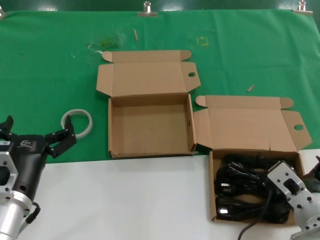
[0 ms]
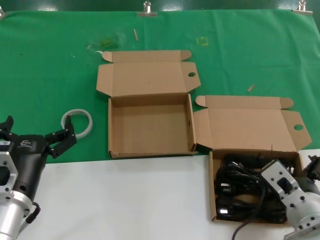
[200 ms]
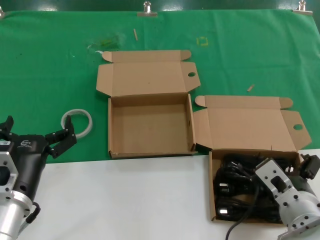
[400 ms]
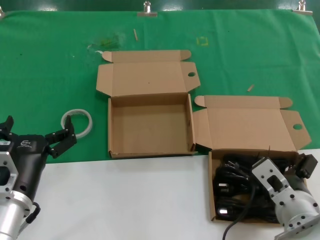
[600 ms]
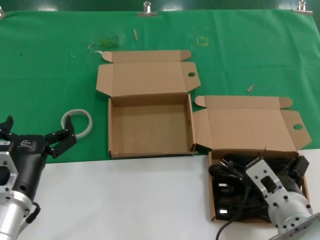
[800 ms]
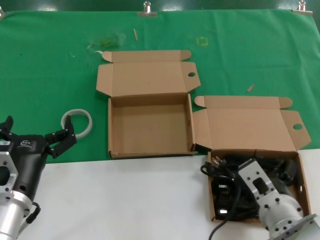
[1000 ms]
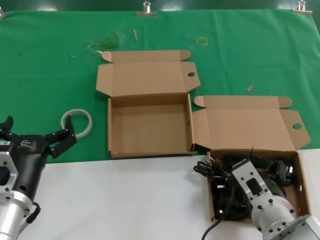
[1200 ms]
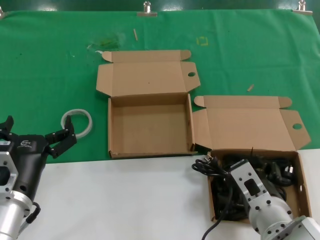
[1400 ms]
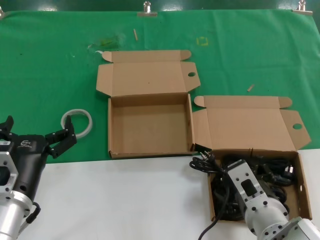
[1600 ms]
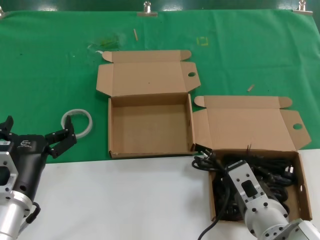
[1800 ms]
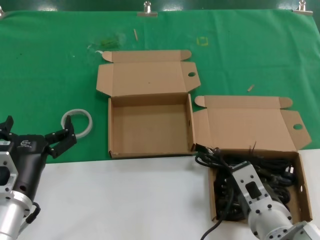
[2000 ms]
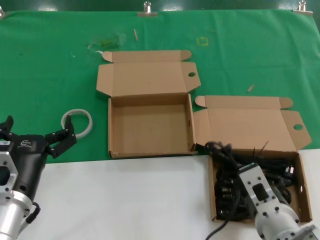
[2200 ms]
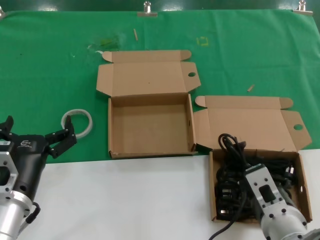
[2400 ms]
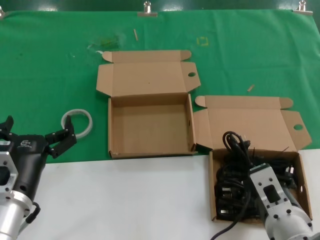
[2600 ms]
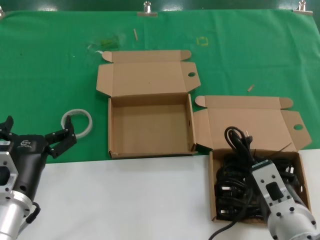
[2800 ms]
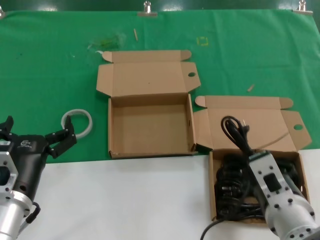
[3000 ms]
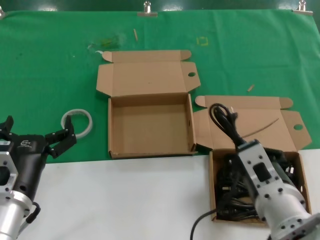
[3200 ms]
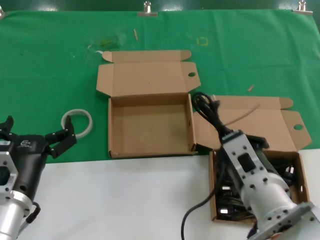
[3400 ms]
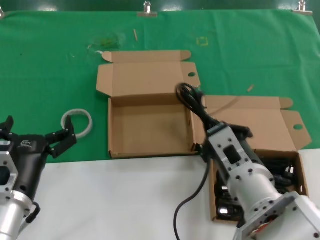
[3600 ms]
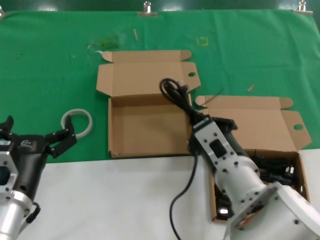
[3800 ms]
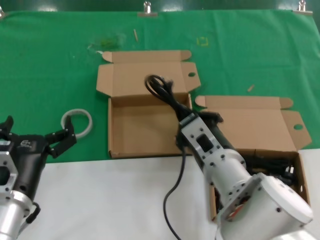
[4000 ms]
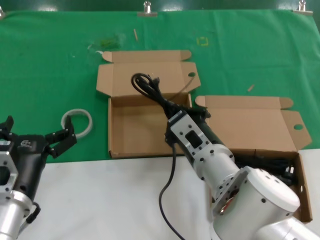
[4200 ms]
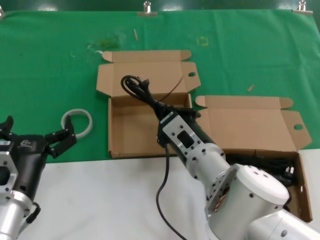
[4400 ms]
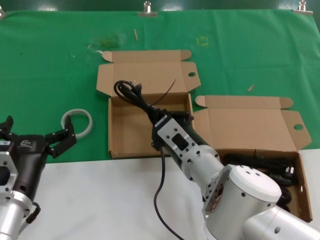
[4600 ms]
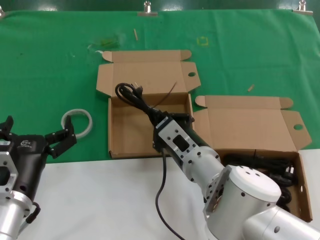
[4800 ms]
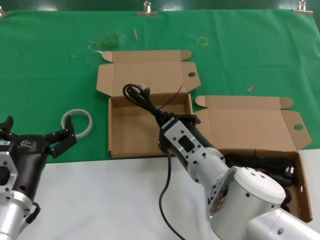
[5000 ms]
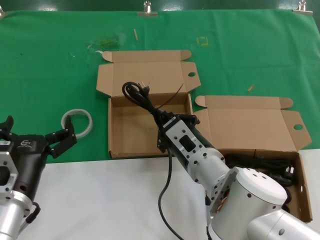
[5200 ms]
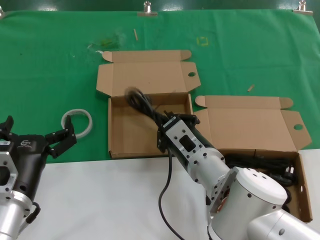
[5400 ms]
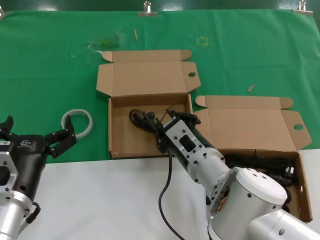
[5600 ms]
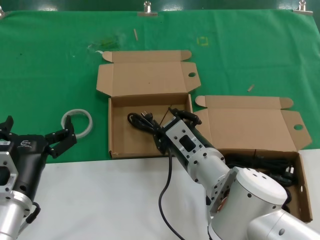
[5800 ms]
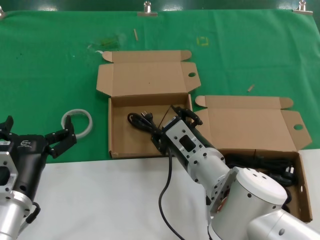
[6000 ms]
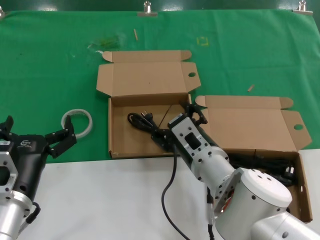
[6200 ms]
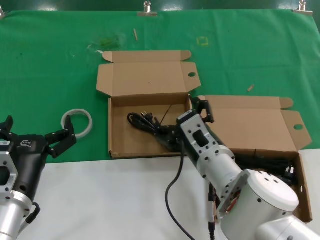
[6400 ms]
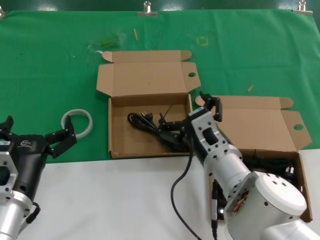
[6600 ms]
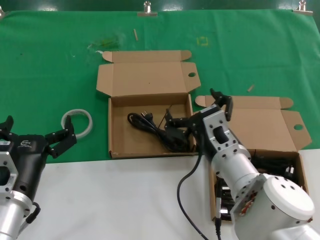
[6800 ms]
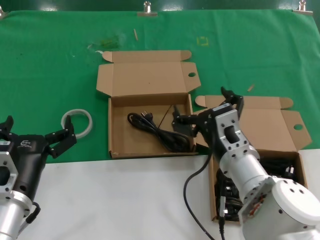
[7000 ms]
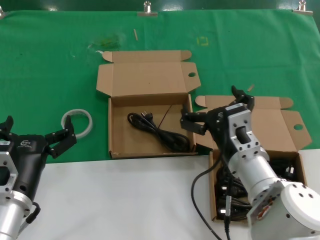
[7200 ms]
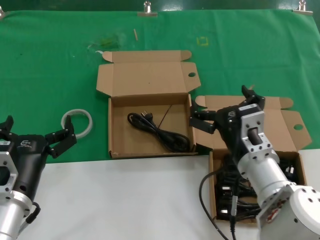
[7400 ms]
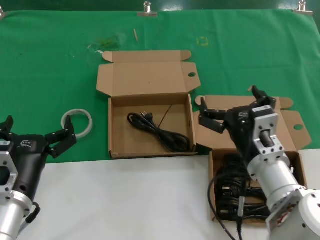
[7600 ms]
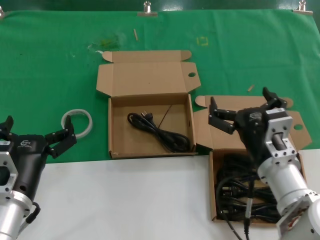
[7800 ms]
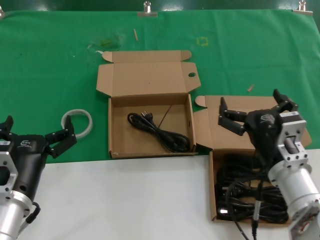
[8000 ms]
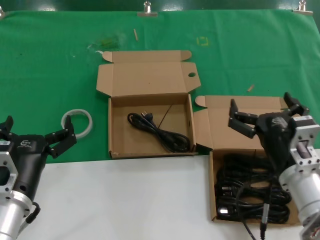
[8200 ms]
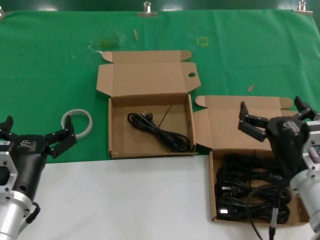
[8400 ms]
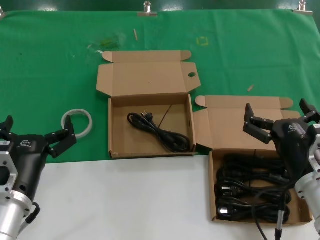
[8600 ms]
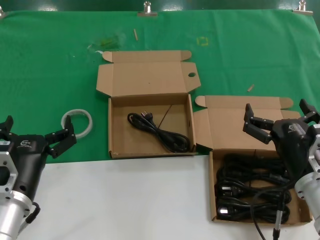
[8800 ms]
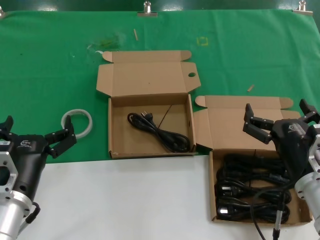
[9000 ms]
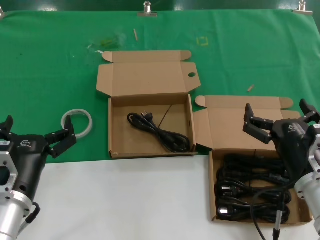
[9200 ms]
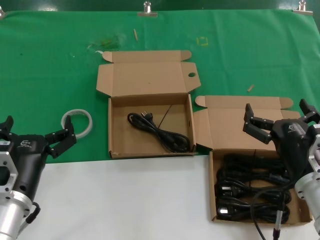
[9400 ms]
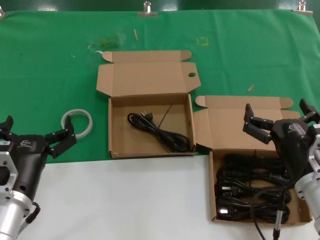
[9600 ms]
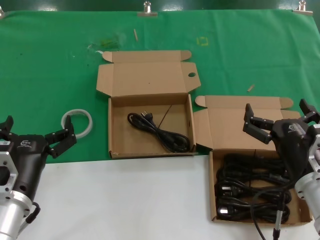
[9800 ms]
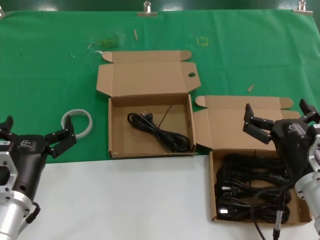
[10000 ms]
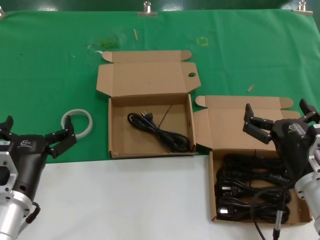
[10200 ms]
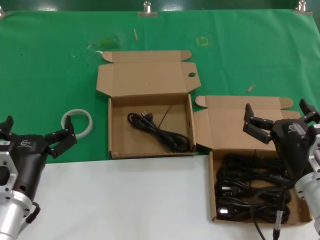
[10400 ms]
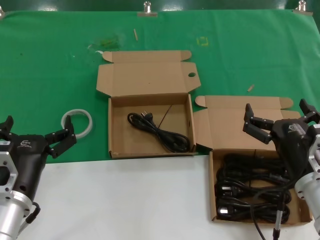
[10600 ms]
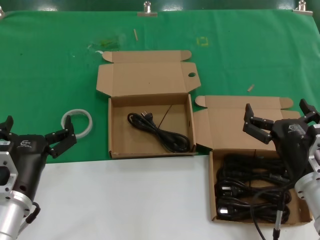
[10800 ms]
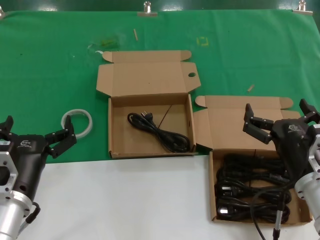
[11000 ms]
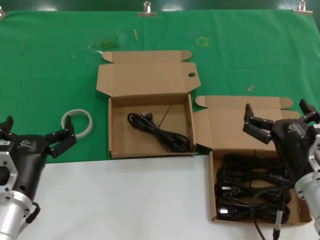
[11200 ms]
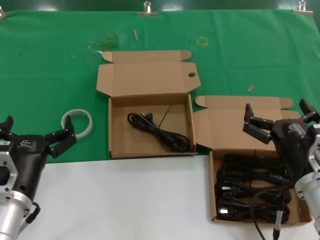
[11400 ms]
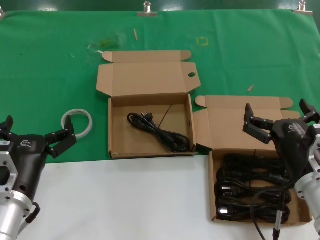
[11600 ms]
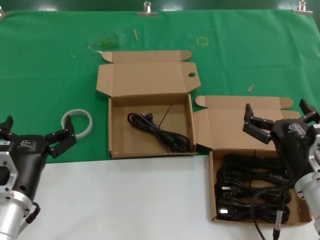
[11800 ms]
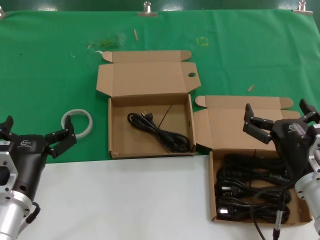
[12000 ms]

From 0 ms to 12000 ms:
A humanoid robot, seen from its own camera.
Task of the whole recording: take the parts from the box containing them and put them into an empty box.
Step, from 0 ms to 2000 ms: Grasp the data cable.
Step, from 2200 ms to 5600 ms: Place the data cable in the another box.
From 0 ms to 1600 ms: The right hand is displaced to the left by approximately 5 cm.
From 1600 ms to 3000 ms: The right hand travels upward by about 5 cm.
From 3000 ms to 4400 ms: The right hand goes about 15 cm forward and to the left.
From 4400 ms to 6000 ms: There are only small adjustments of the hands.
From 6000 ms to 7600 ms: The right hand heads to the right, covering some 10 cm.
From 7600 ms to 9000 ms: The right hand goes roughly 5 cm to the right.
From 9000 ms to 12000 ms: The two hands keep their place.

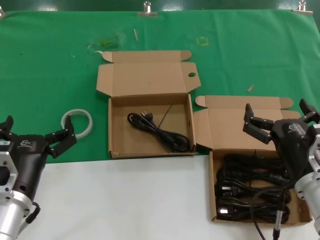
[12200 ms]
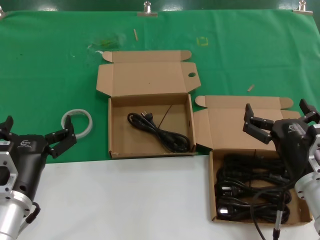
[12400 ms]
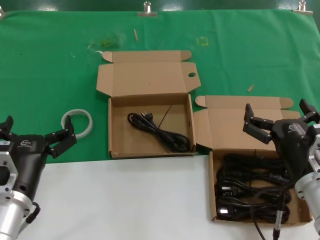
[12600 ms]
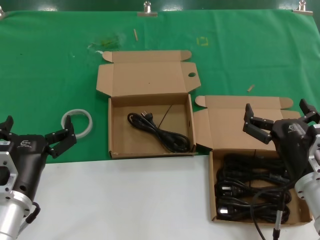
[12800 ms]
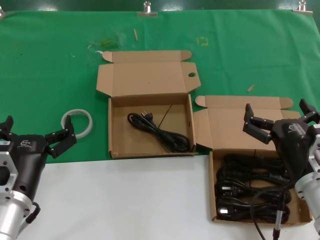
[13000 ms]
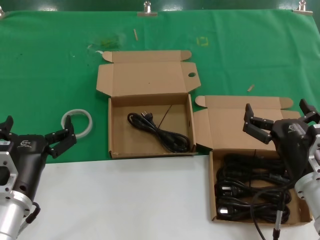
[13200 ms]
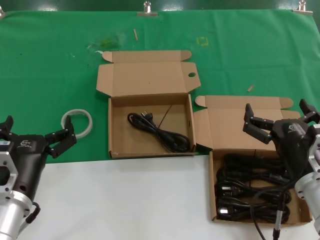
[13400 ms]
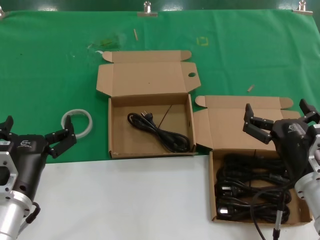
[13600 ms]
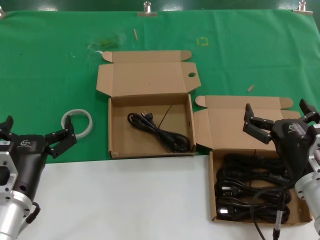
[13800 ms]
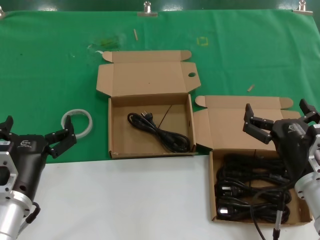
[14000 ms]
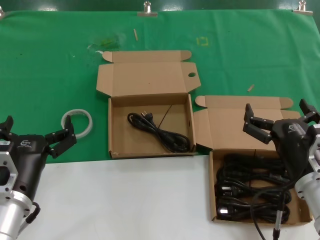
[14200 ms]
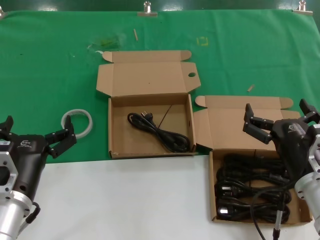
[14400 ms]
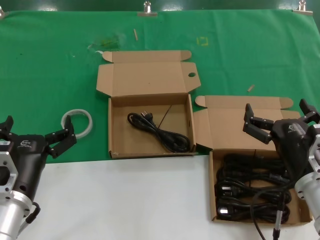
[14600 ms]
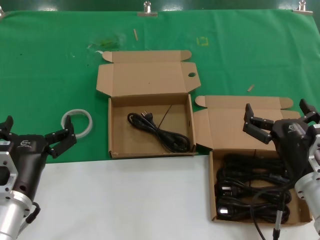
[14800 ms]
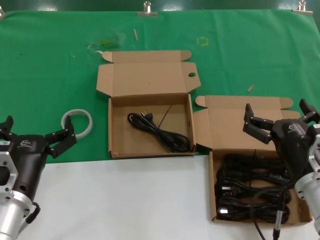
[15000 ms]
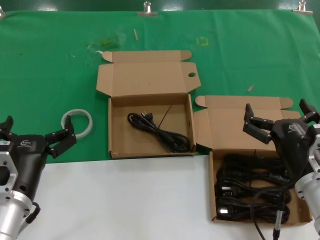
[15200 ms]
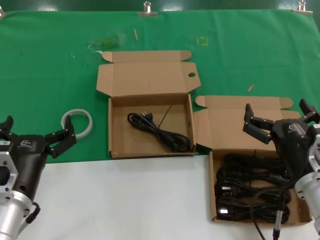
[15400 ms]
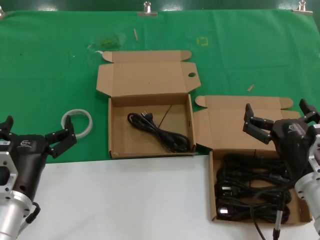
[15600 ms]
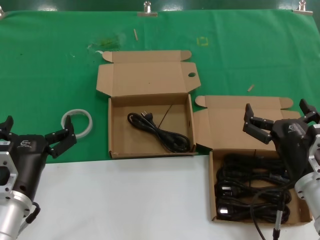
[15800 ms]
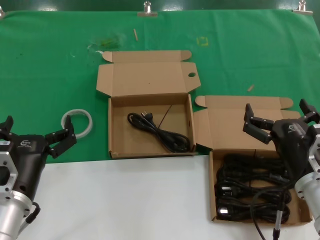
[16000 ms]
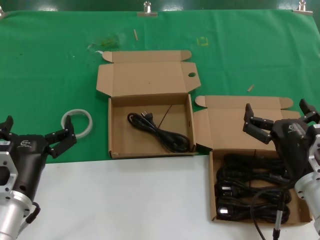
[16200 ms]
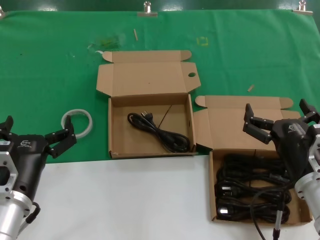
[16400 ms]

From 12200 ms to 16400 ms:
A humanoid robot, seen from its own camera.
Task of the whole recording: take the parts from the box containing them and put them into an empty box.
From 12200 ms to 16400 ms: Neither hand changes place.

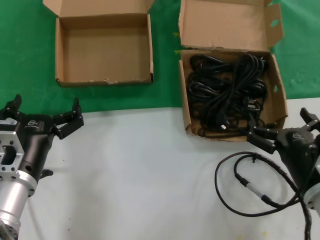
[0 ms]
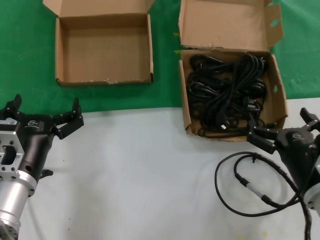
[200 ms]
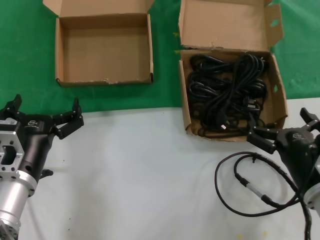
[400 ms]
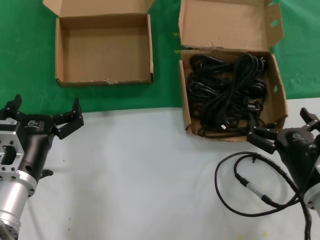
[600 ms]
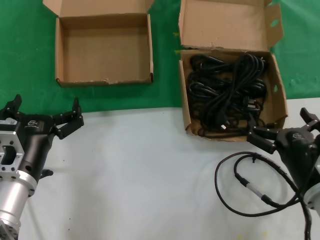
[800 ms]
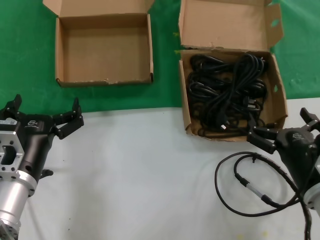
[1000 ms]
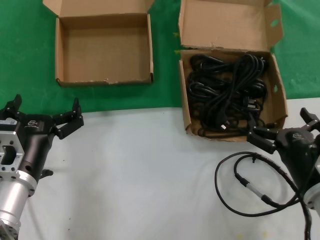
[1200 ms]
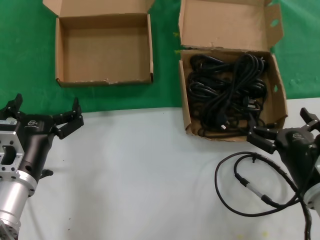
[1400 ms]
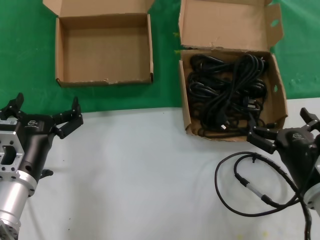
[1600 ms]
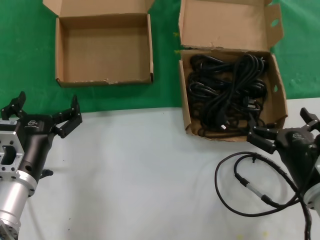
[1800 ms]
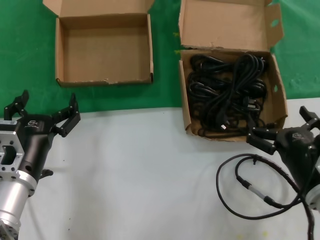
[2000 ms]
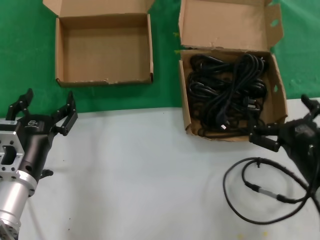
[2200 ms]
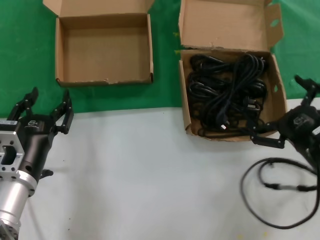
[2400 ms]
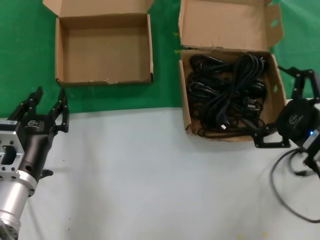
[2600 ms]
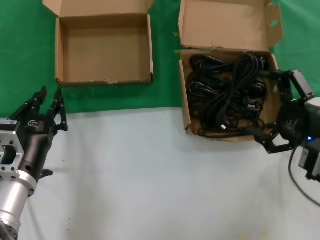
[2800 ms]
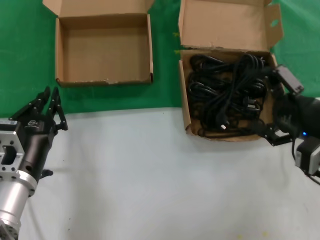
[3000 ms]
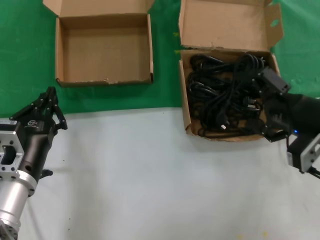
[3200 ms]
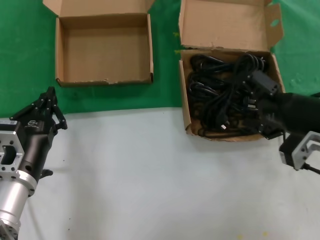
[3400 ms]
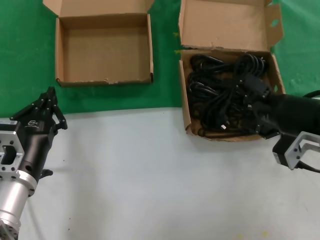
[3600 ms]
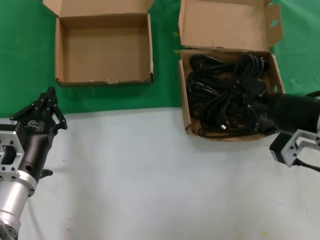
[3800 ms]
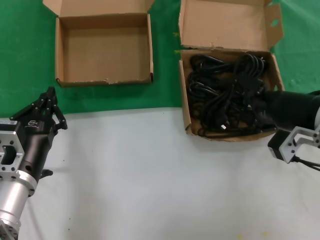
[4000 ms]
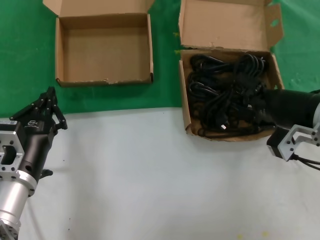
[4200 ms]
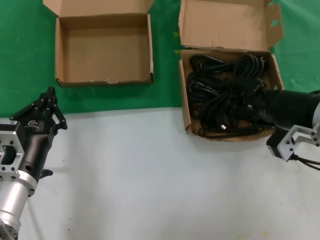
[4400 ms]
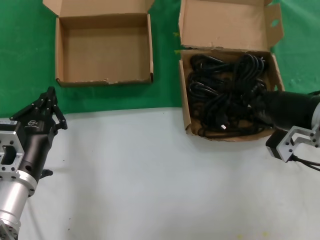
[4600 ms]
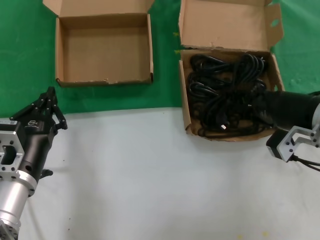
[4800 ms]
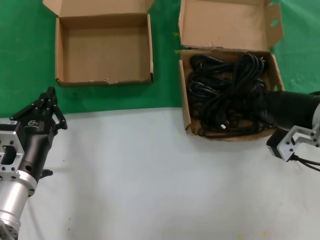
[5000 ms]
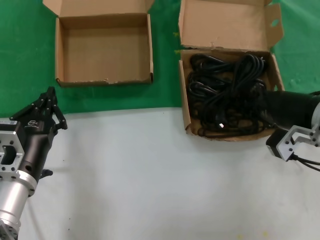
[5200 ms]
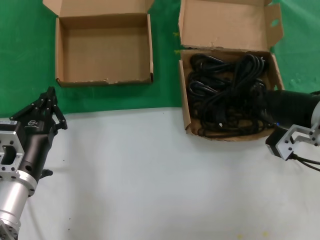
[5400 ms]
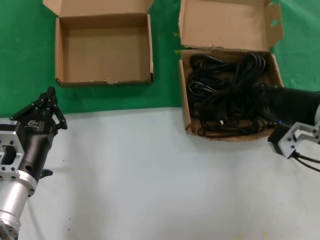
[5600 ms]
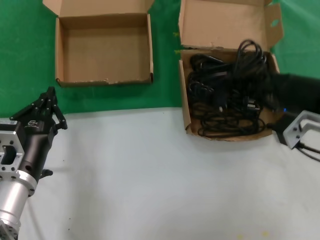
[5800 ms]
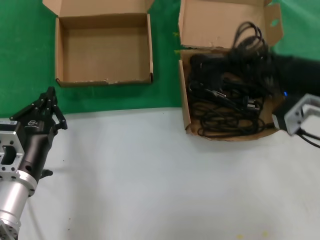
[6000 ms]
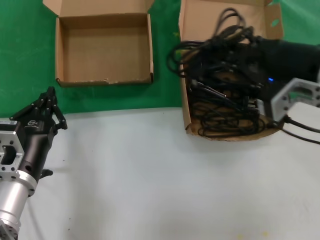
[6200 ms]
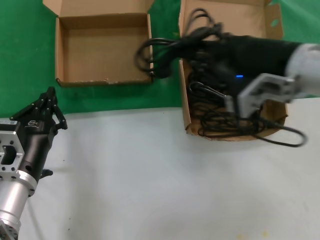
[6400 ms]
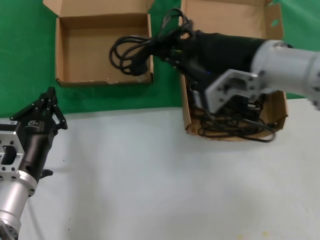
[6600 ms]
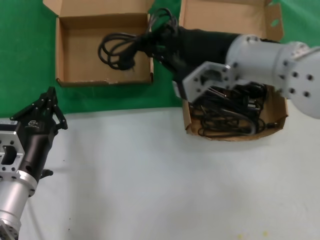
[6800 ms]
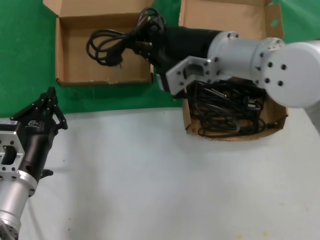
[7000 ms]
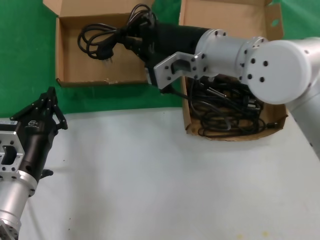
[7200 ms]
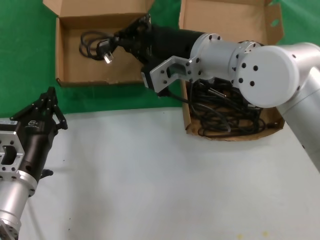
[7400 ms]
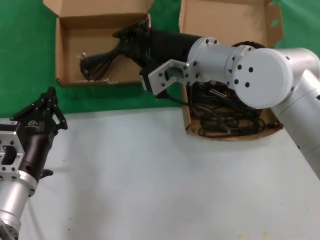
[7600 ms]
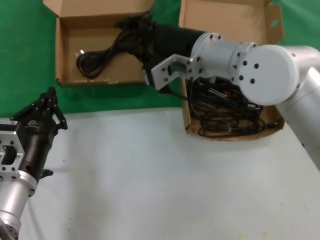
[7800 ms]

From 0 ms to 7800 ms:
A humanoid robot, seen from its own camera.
Task of the whole recording: take the parts from the box containing them and put them into an empty box.
Step, from 0 ms to 4800 ms: Grasp the data cable.
Step, from 5000 ms to 7400 ms: Place the data cable in the another box.
From 0 ms to 1600 ms: Both hands stay put.
From 1600 ms to 3200 ms: The right hand moves upward, roughly 15 cm.
From 3200 ms to 4600 ms: The right hand heads forward, covering some 5 cm.
From 4600 ms to 6200 ms: The right hand moves upward, some 10 cm.
From 6200 ms to 7800 ms: The right hand moves to the left and forward, approximately 20 cm.
